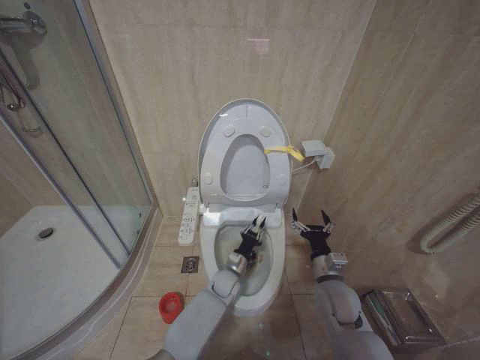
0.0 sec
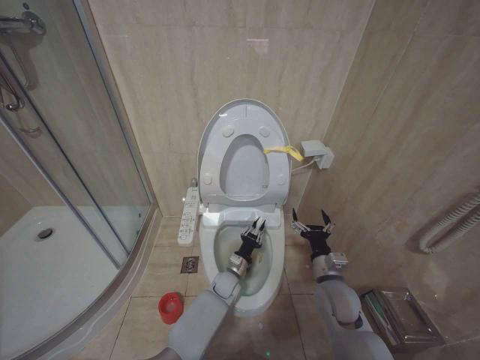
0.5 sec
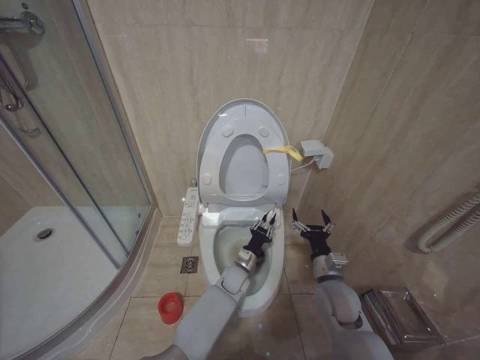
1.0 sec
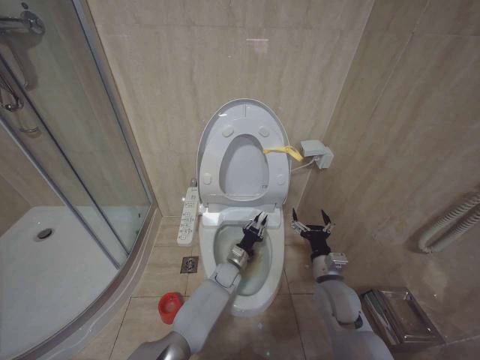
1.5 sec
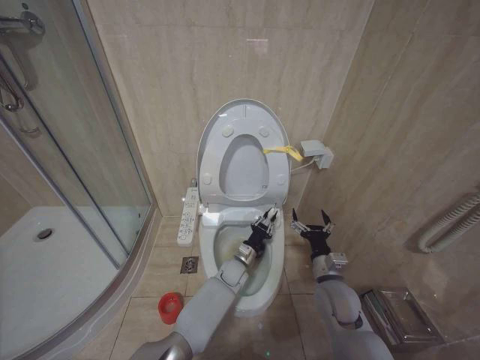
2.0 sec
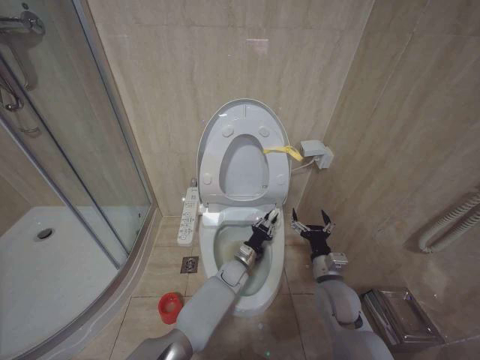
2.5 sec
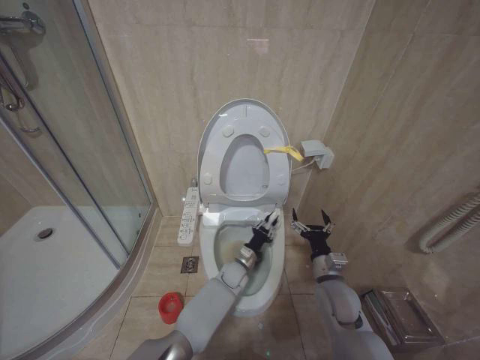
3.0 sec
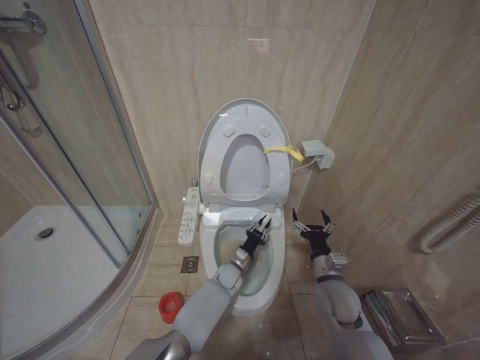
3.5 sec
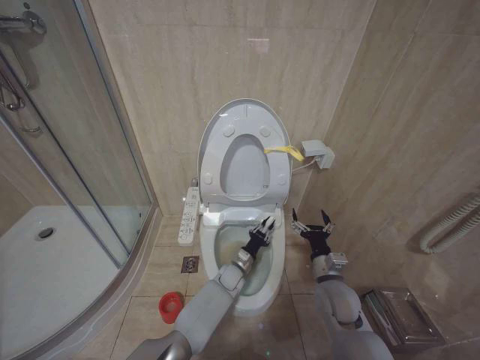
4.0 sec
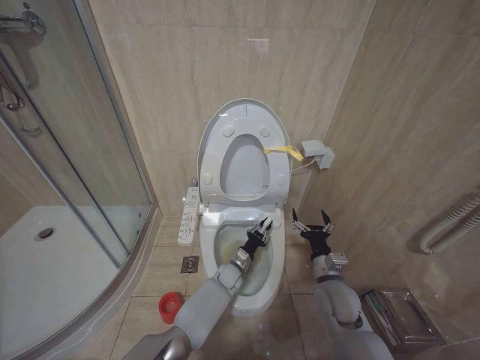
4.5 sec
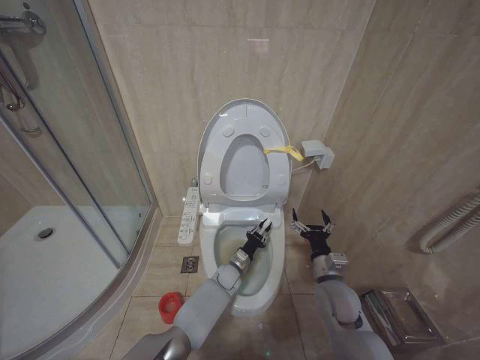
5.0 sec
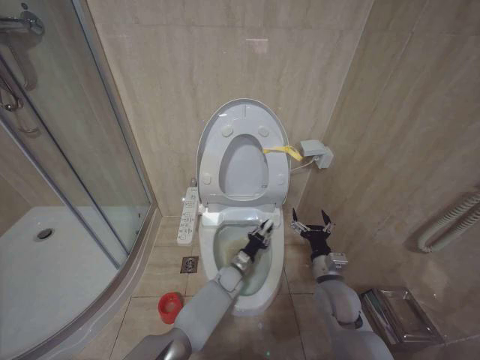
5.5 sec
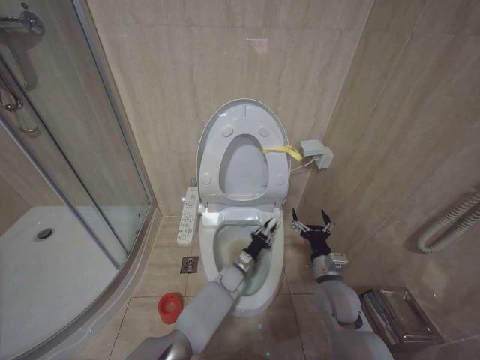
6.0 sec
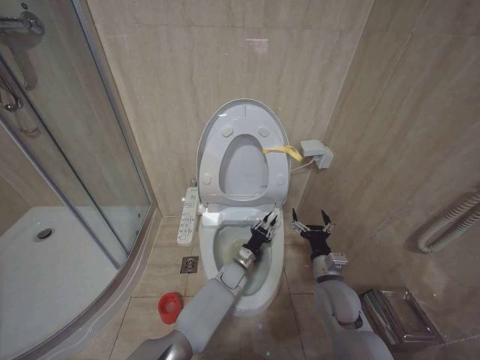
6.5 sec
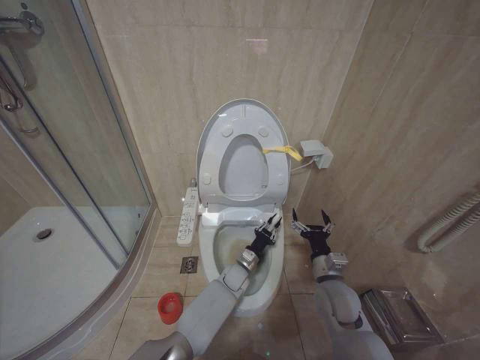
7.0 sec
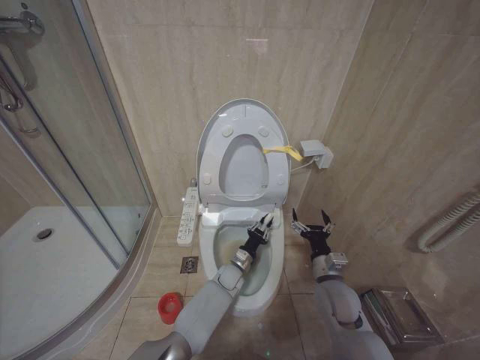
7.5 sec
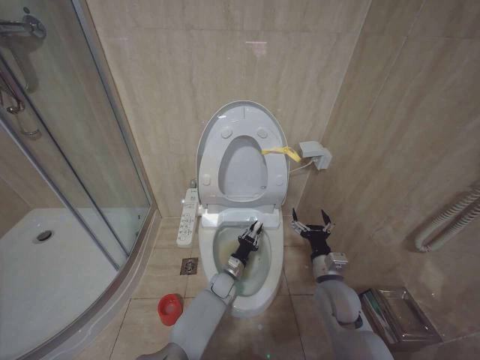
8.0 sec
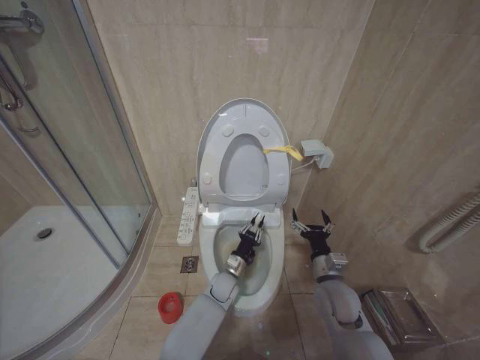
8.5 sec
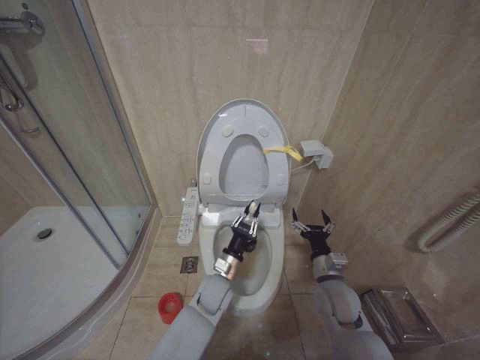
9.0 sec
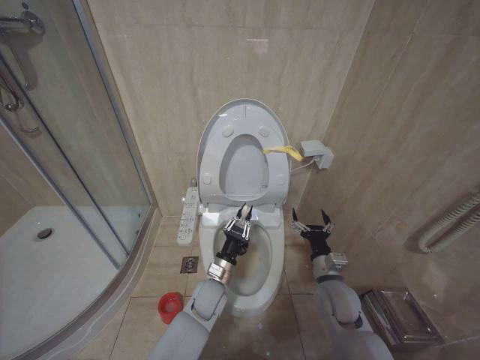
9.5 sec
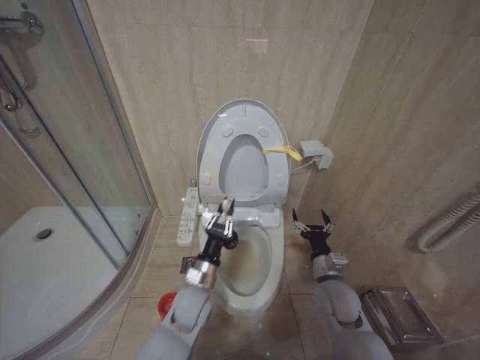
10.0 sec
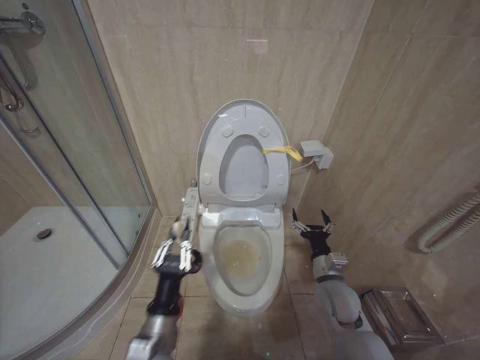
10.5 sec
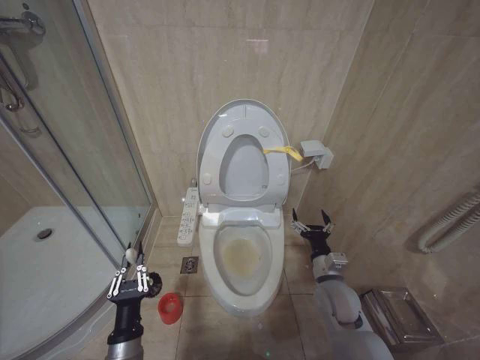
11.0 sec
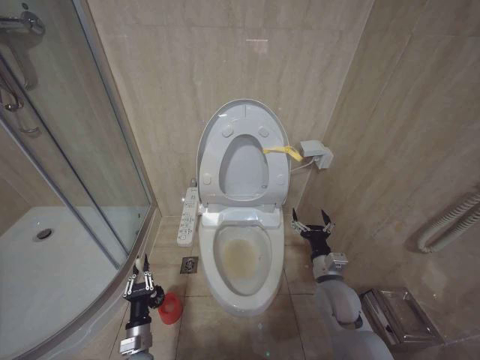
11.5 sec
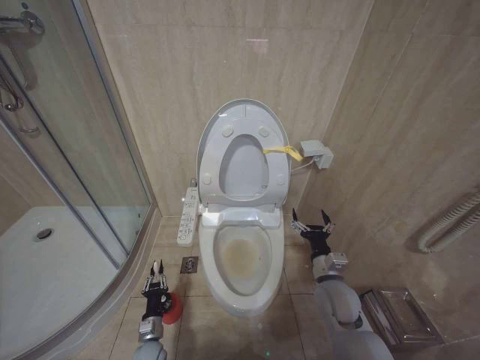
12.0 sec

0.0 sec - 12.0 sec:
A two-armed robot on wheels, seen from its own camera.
Task of the whole recording: Open the toilet lid, clean the toilet bowl with a toilet brush, close the toilet lid, and flush.
0.0 sec - 2.0 sec: The left gripper ends up approximately 5 cm from where it was.
2.0 sec - 6.0 sec: The grippers move only a little.
6.0 sec - 8.0 sec: The left gripper changes place by some 5 cm.
8.0 sec - 10.0 sec: The left gripper travels upward, backward and to the left by some 20 cm.
10.0 sec - 12.0 sec: The left gripper goes some 30 cm downward and to the left.

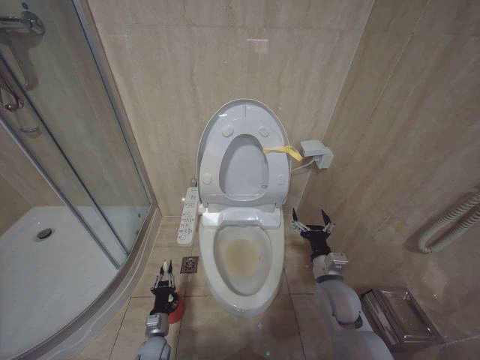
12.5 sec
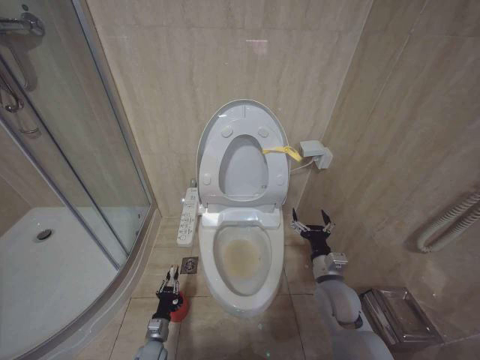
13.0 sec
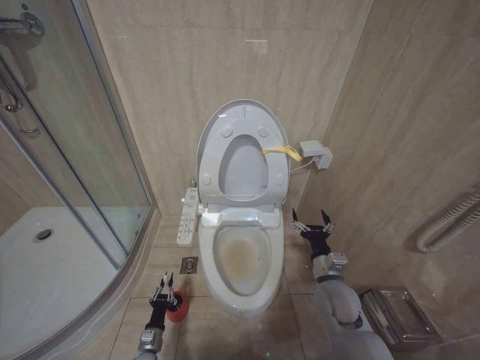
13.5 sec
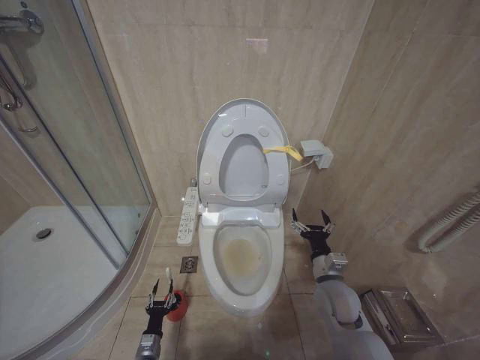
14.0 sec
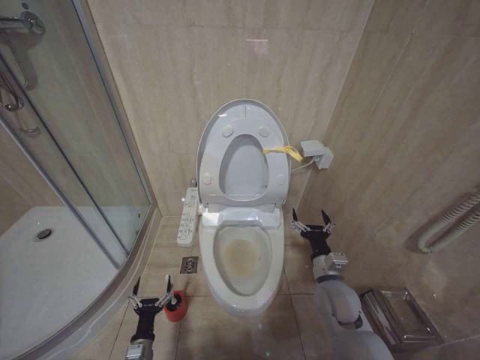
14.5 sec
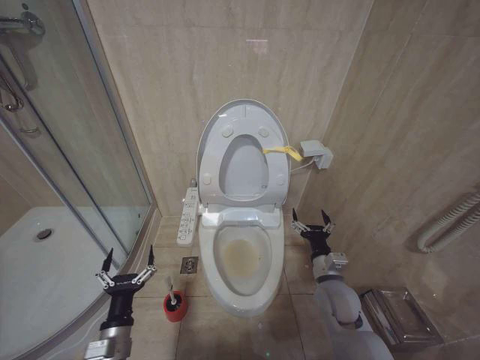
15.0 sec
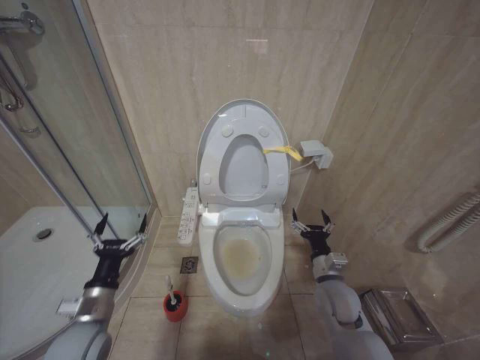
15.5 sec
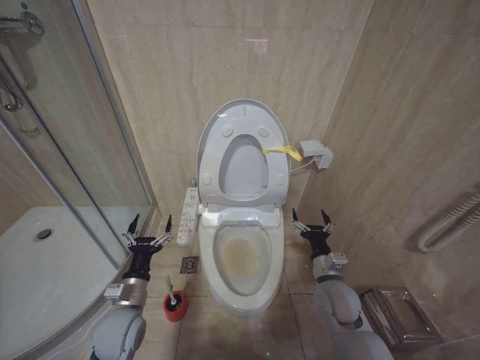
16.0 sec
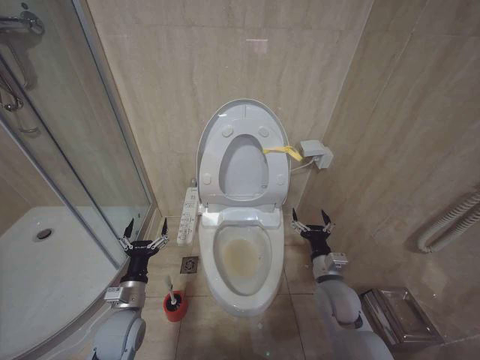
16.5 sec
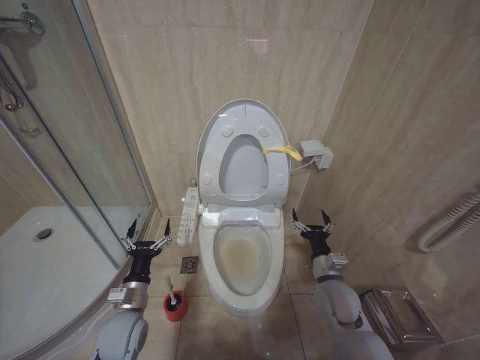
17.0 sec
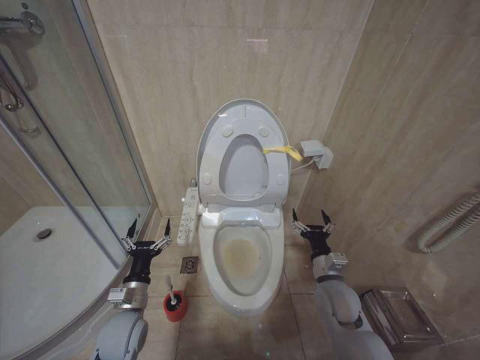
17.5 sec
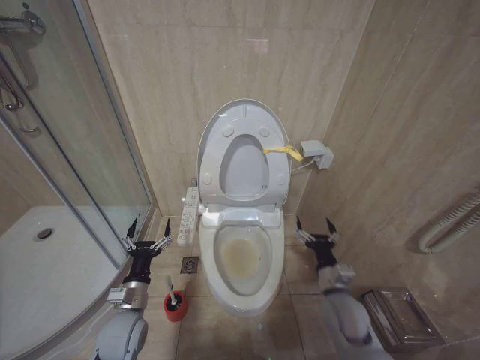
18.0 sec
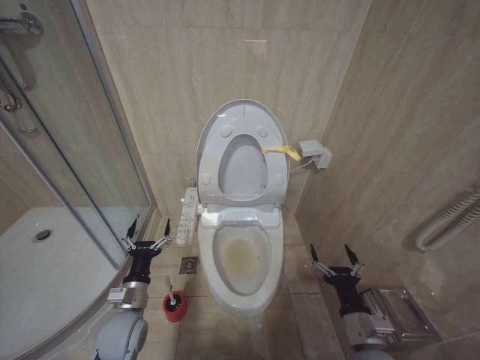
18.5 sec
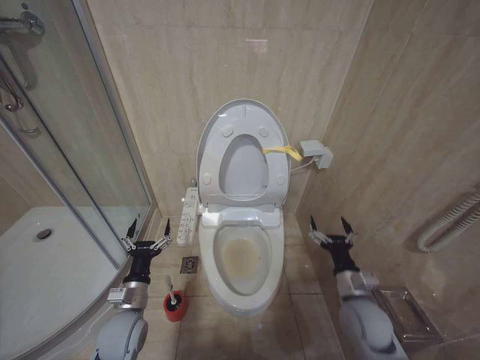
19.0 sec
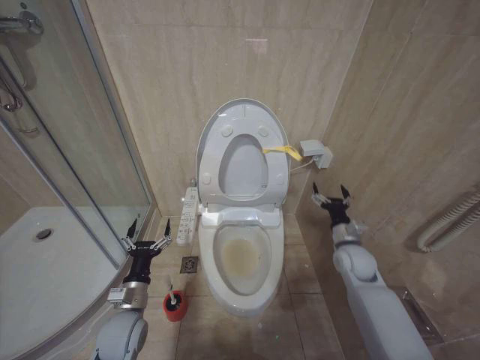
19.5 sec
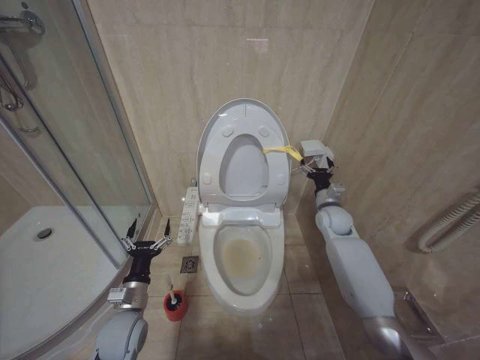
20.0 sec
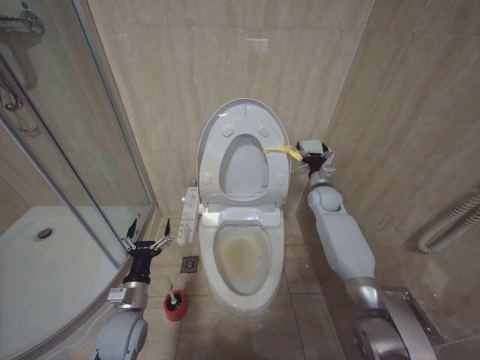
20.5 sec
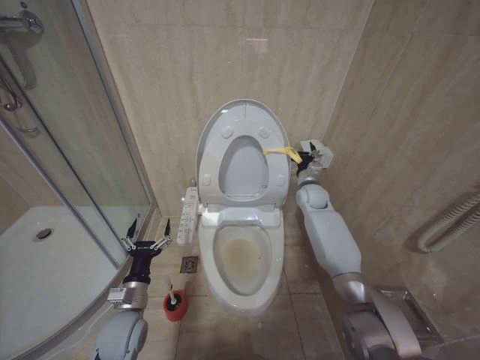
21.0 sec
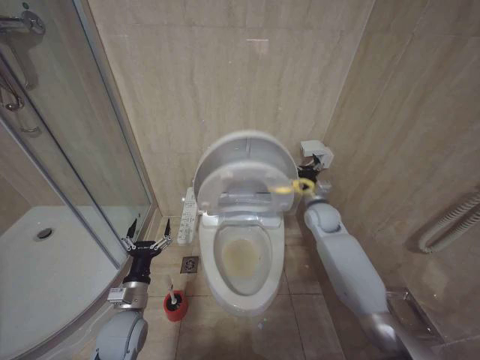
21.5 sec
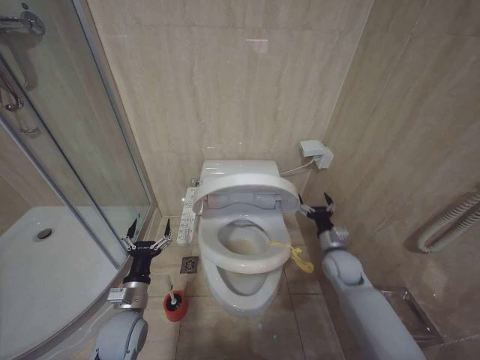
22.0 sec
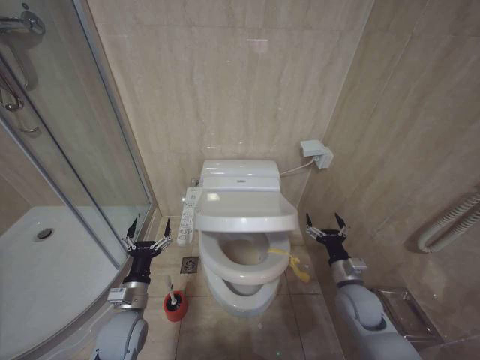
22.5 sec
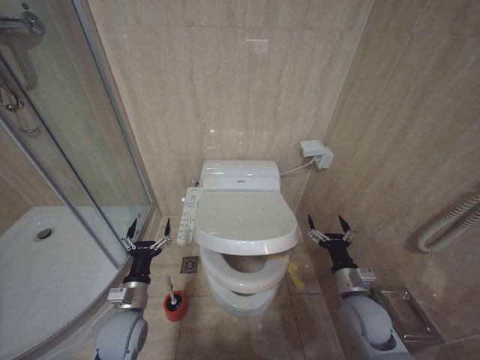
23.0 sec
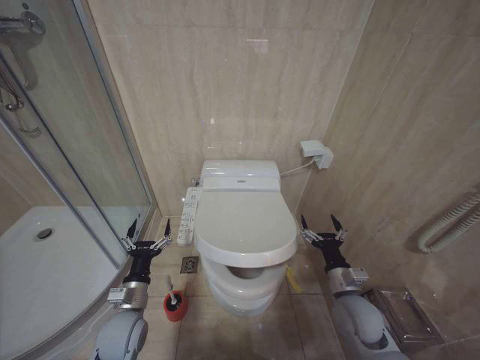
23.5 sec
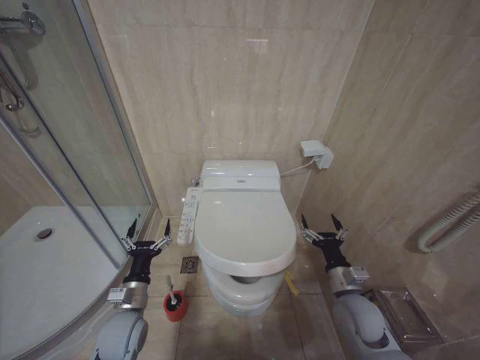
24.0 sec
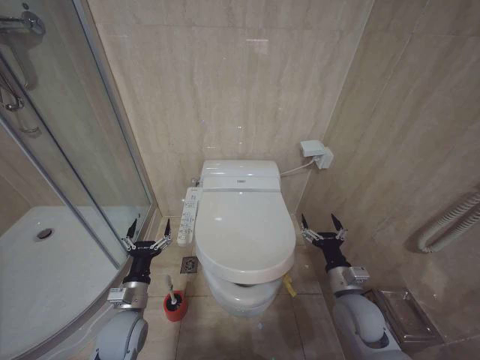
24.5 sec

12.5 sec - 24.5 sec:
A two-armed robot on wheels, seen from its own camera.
Task of the whole recording: Open the toilet lid, clean the toilet bowl with a toilet brush, close the toilet lid, and flush.
12.5 sec - 14.5 sec: The left gripper is displaced backward by approximately 10 cm, and opens.
14.5 sec - 16.5 sec: The left gripper is displaced upward by about 25 cm.
16.5 sec - 18.5 sec: The right gripper moves backward, roughly 15 cm.
18.5 sec - 20.5 sec: The right gripper travels forward by about 40 cm.
20.5 sec - 22.5 sec: The right gripper shifts some 25 cm backward and downward.
22.5 sec - 24.5 sec: The right gripper moves some 5 cm.

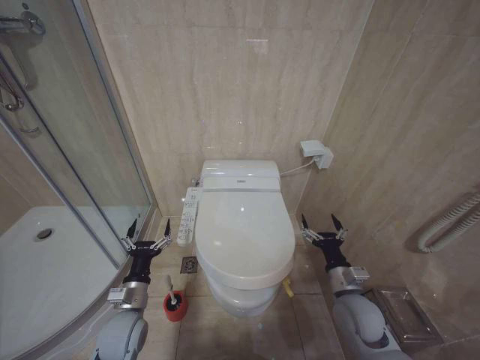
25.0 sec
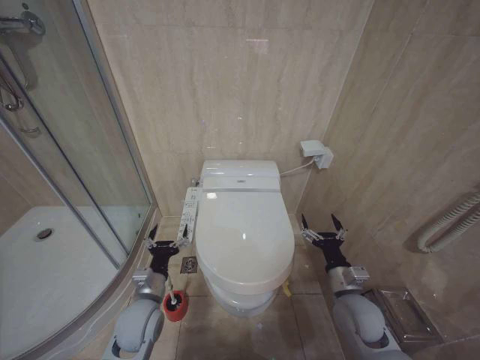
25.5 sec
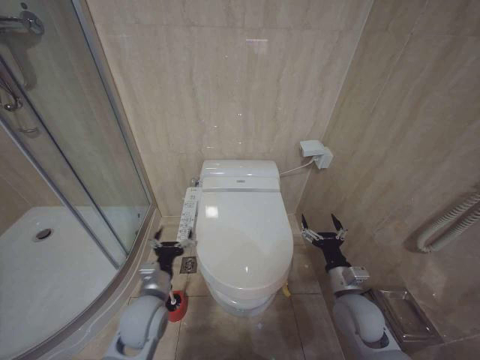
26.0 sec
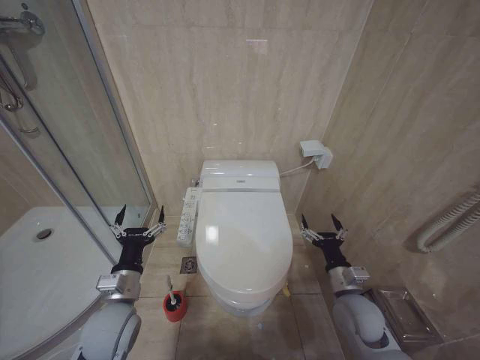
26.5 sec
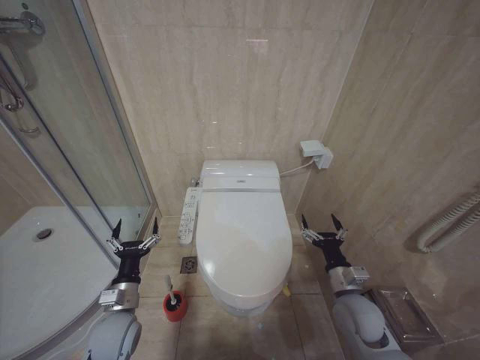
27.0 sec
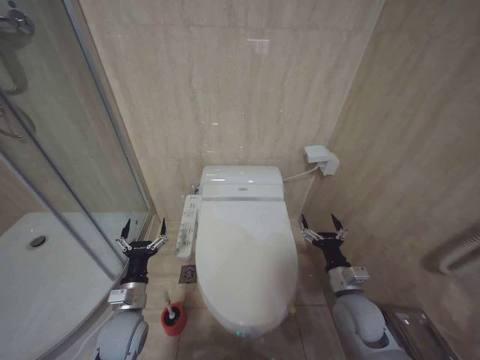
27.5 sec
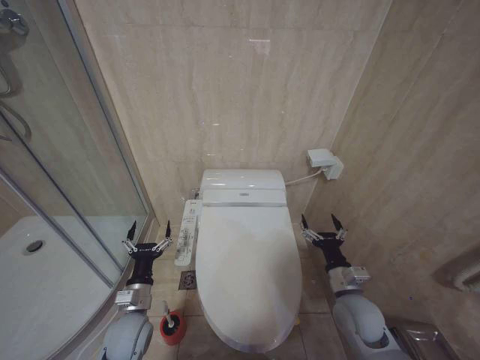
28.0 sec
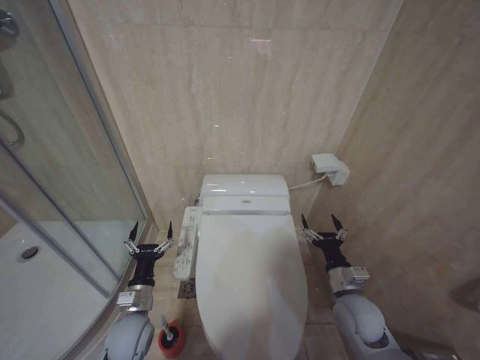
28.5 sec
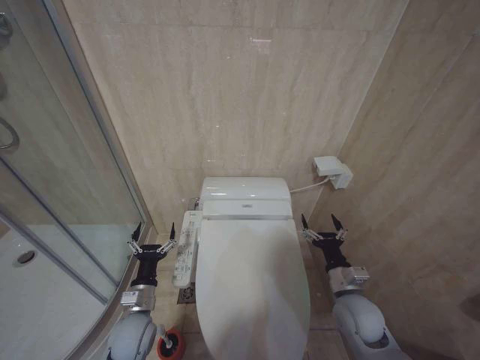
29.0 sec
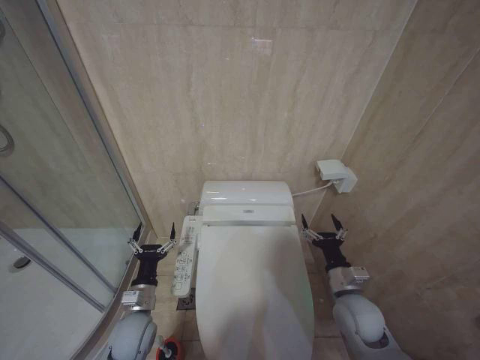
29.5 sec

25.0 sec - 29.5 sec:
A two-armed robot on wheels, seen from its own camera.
Task of the whole recording: Open the toilet lid, clean the toilet bowl with a toilet brush, close the toilet lid, and flush.
25.0 sec - 27.0 sec: The left gripper moves some 10 cm upward and comes back.
27.0 sec - 29.5 sec: The grippers move only a little.
